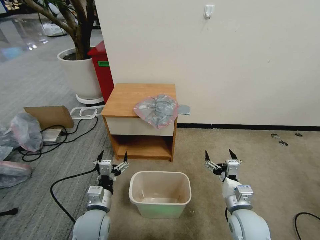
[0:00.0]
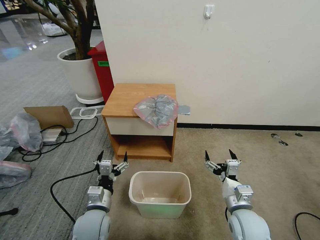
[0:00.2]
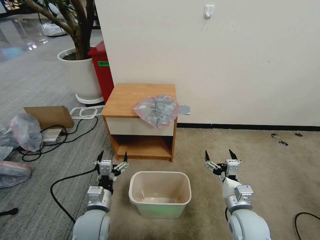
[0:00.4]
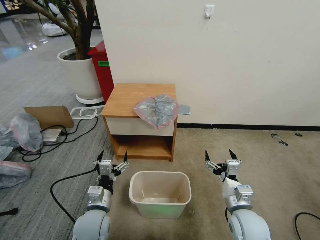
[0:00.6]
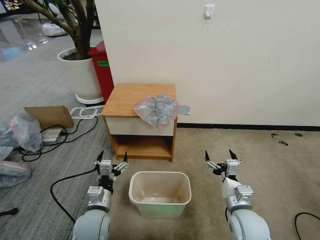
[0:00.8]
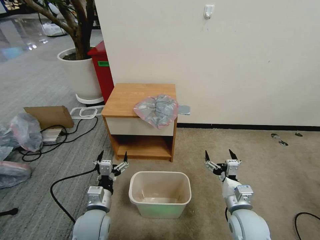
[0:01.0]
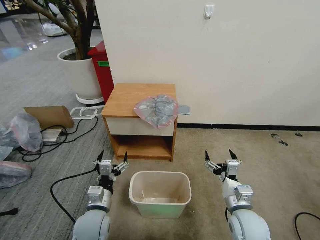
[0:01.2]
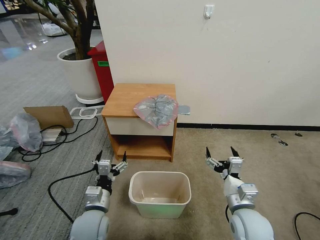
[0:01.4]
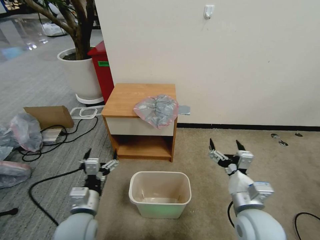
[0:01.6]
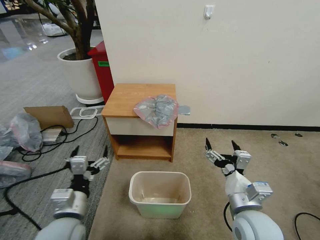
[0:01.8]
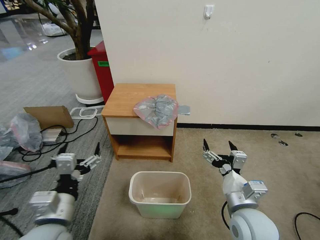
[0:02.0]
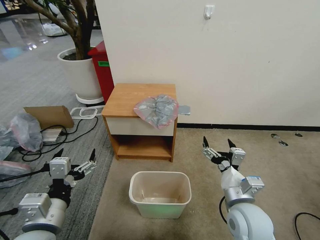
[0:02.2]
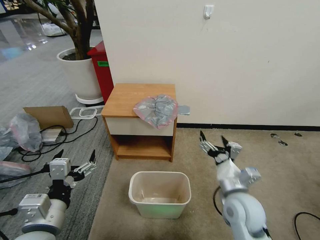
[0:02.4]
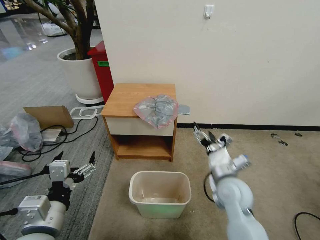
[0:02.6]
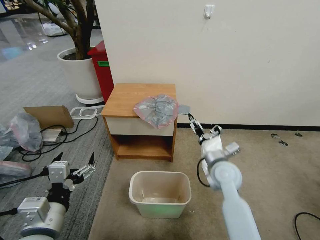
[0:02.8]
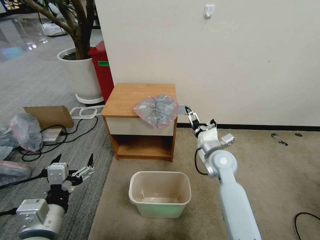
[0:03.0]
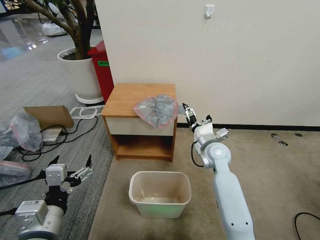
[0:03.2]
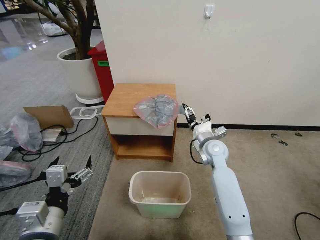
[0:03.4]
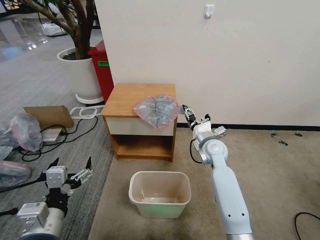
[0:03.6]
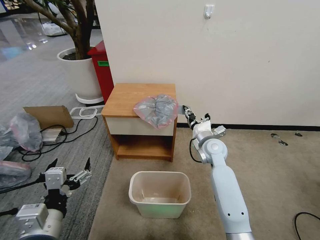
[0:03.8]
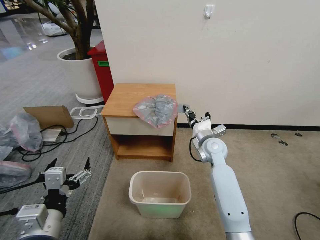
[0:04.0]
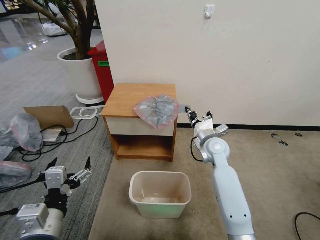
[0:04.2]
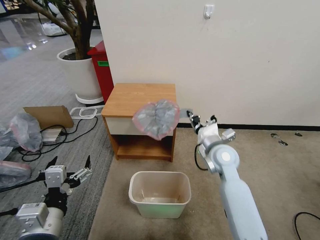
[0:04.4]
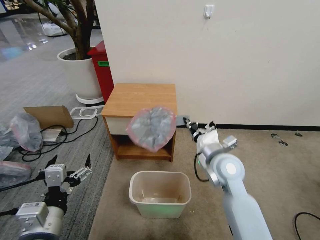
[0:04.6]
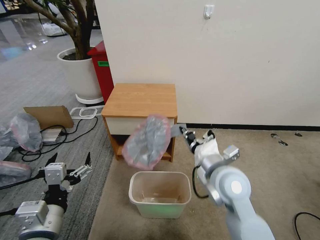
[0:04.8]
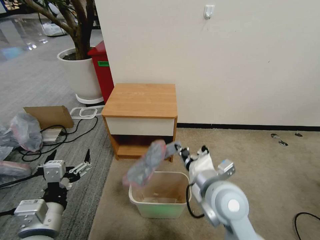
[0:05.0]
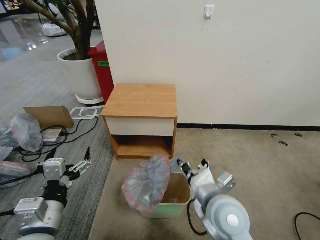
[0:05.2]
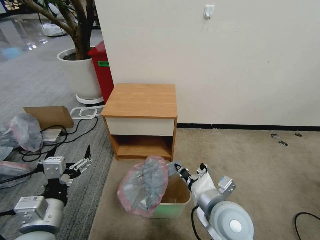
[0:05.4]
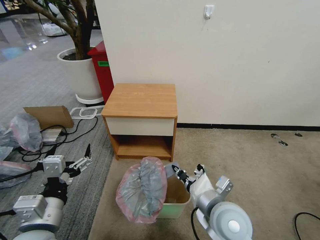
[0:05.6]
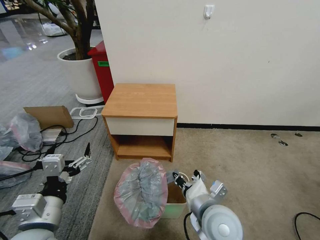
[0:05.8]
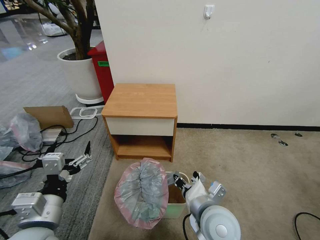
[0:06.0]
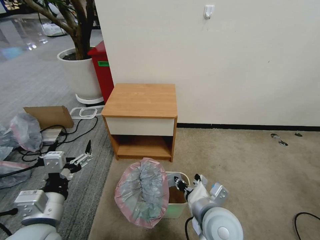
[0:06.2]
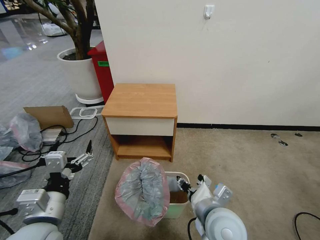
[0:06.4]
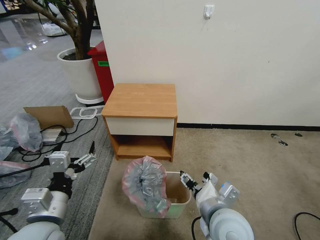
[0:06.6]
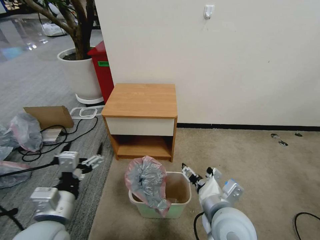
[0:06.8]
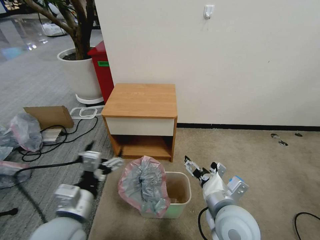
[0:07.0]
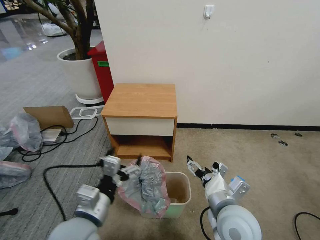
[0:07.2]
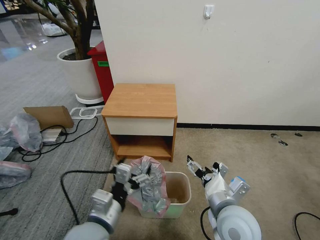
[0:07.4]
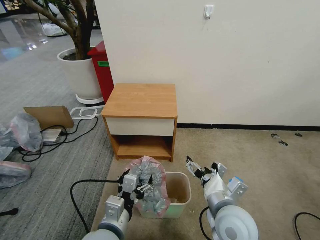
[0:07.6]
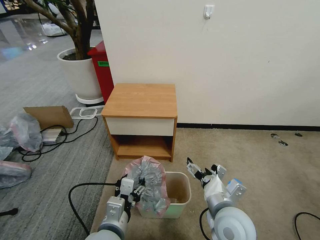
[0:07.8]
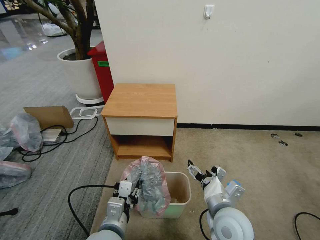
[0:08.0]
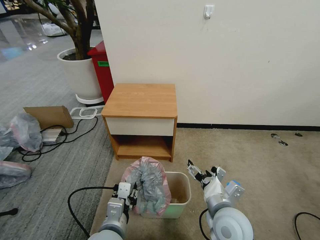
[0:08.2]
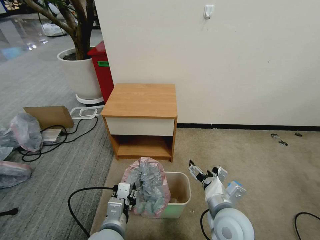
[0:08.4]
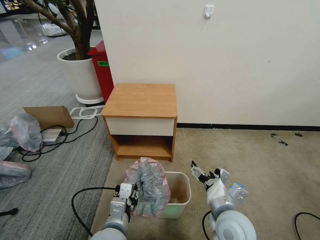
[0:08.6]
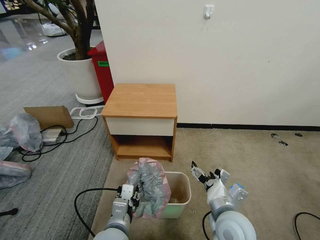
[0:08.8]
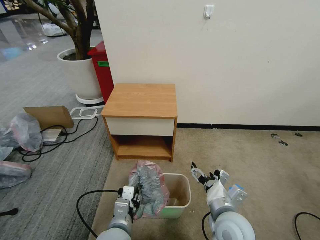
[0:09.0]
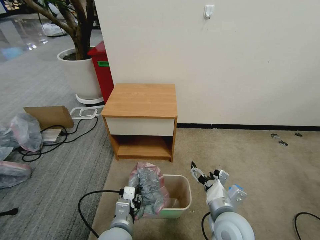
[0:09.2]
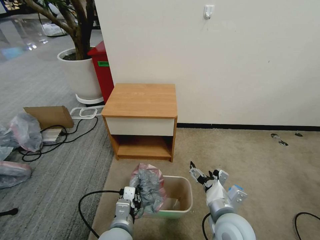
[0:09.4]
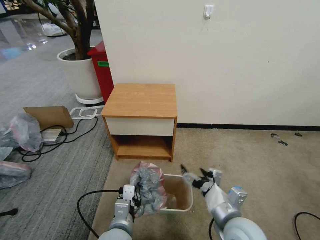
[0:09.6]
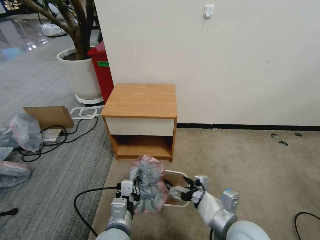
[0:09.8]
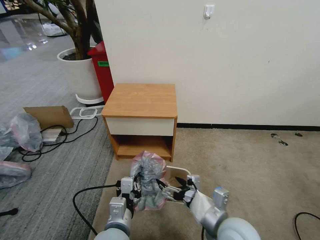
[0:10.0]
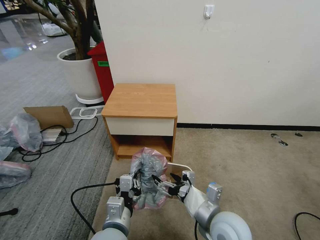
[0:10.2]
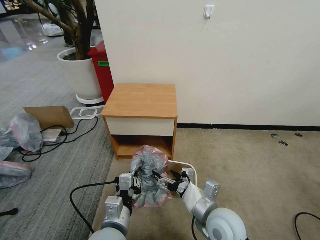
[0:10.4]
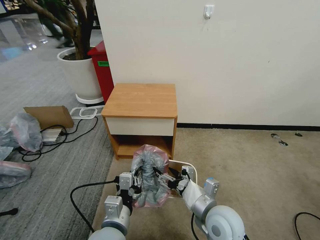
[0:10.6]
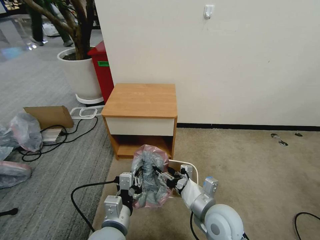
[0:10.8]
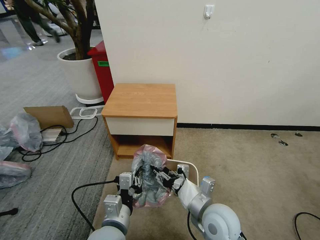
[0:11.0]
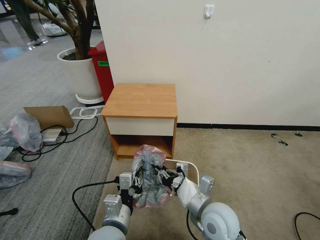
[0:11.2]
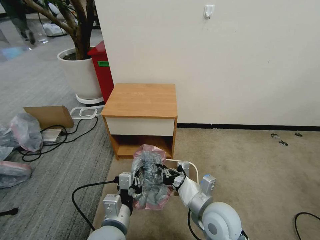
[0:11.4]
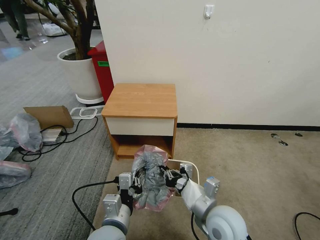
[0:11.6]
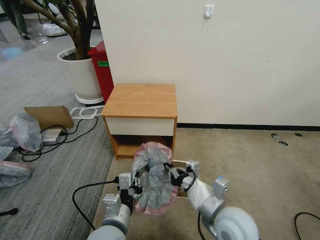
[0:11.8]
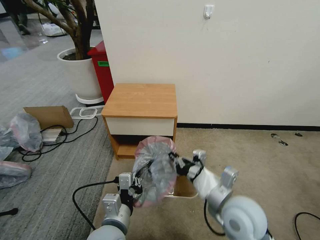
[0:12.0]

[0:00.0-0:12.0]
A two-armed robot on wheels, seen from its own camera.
Task of the whole recording: Pick up the garbage bag from the table and place it over the trash can.
0:01.6 to 0:03.0: The left gripper heads upward and backward, covering about 10 cm. Meanwhile the right gripper shifts roughly 20 cm forward.
0:03.0 to 0:04.4: The right gripper closes.
0:04.4 to 0:06.0: The right gripper heads backward, covering about 20 cm.
0:06.0 to 0:07.6: The right gripper opens its fingers. The left gripper heads to the right and downward, covering some 15 cm.
0:07.6 to 0:09.0: The left gripper moves downward, roughly 5 cm, and closes up.
0:09.0 to 0:10.4: The left gripper closes.
0:10.4 to 0:12.0: The right gripper moves upward, some 5 cm, and closes up.

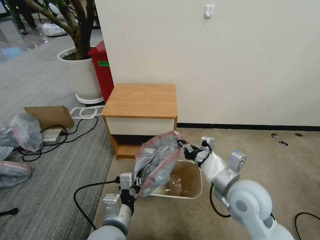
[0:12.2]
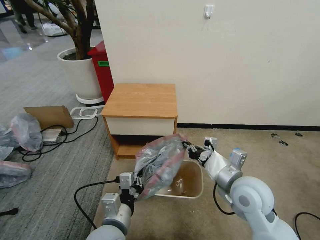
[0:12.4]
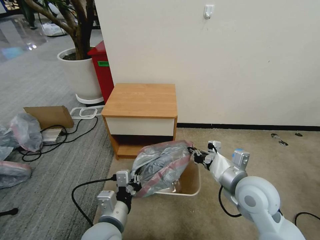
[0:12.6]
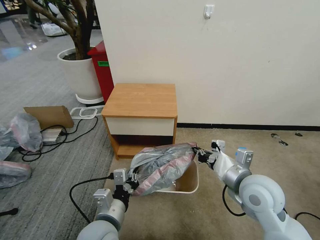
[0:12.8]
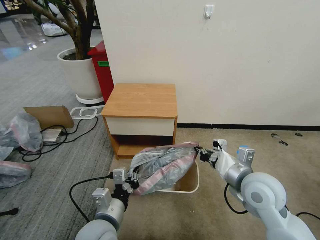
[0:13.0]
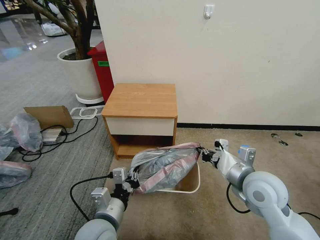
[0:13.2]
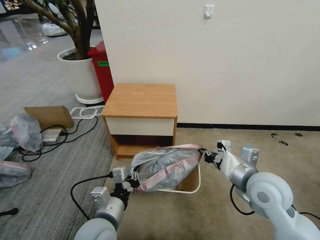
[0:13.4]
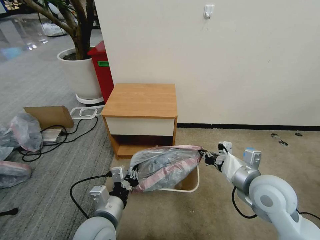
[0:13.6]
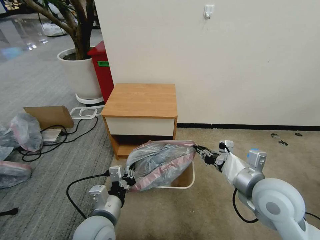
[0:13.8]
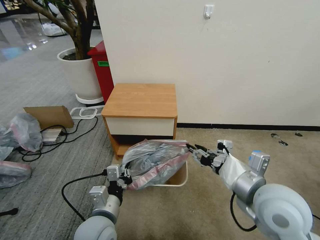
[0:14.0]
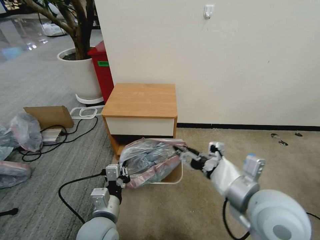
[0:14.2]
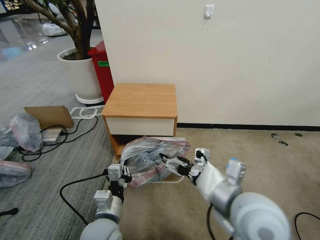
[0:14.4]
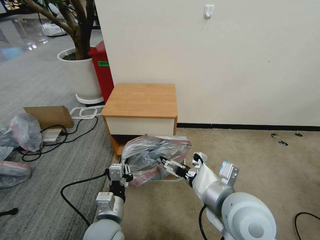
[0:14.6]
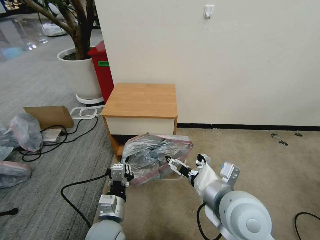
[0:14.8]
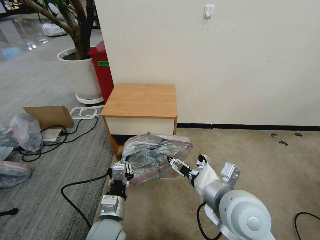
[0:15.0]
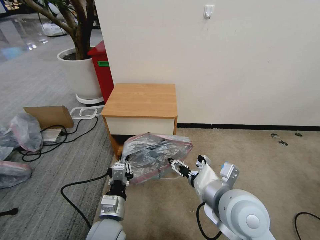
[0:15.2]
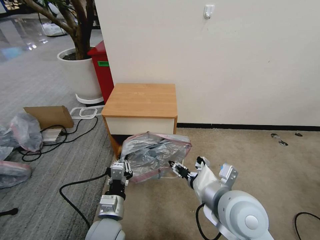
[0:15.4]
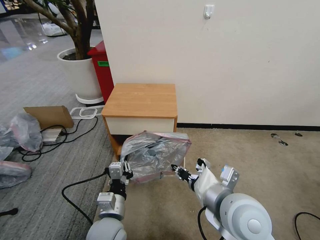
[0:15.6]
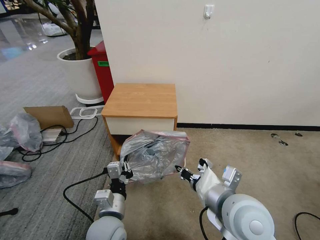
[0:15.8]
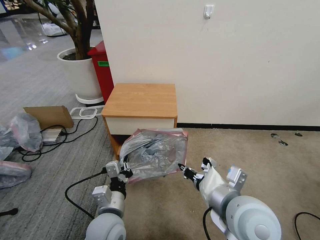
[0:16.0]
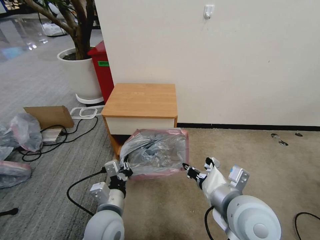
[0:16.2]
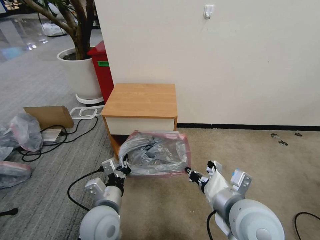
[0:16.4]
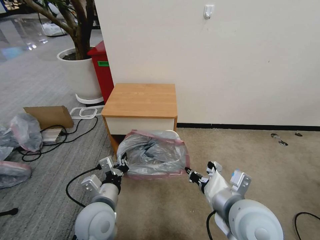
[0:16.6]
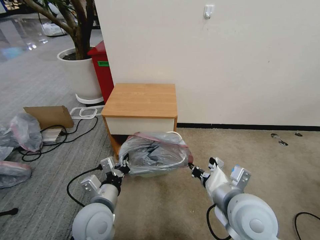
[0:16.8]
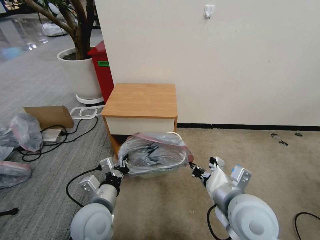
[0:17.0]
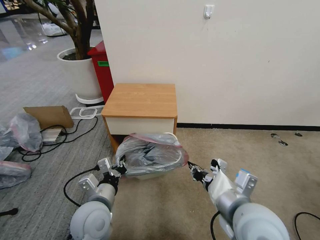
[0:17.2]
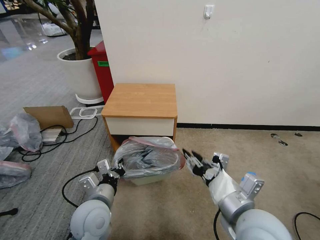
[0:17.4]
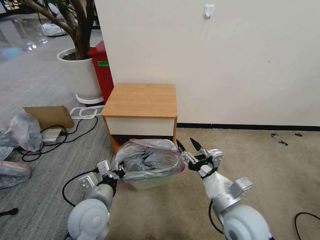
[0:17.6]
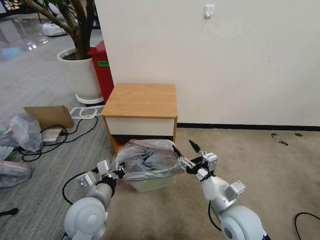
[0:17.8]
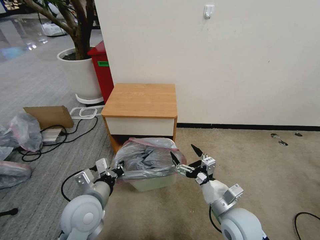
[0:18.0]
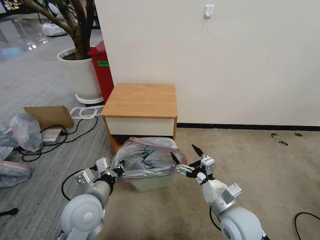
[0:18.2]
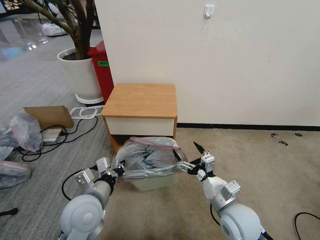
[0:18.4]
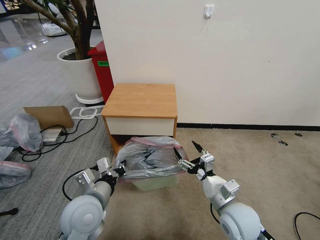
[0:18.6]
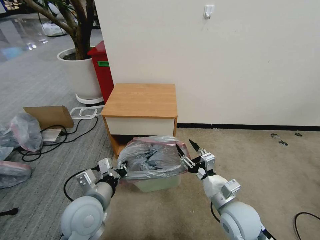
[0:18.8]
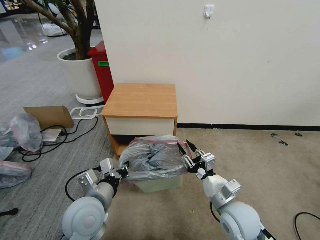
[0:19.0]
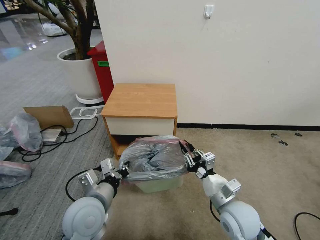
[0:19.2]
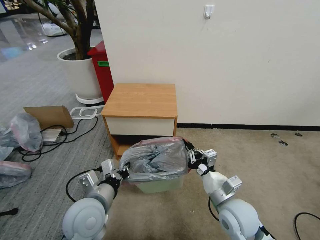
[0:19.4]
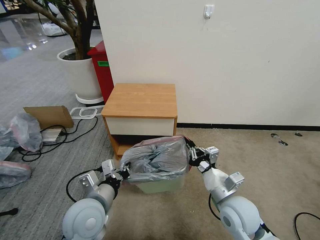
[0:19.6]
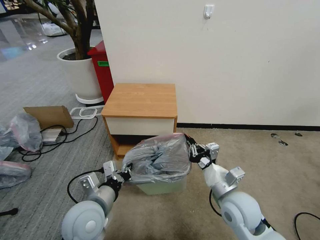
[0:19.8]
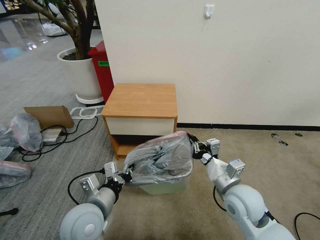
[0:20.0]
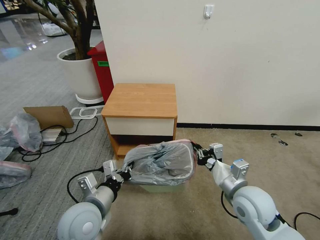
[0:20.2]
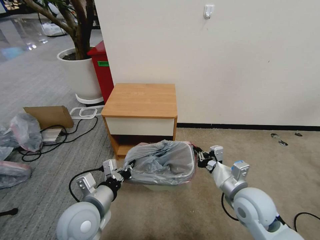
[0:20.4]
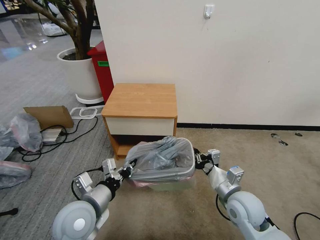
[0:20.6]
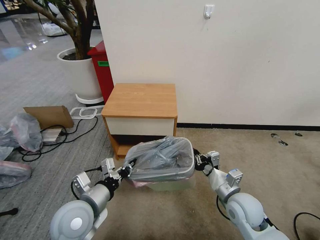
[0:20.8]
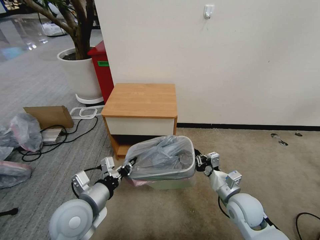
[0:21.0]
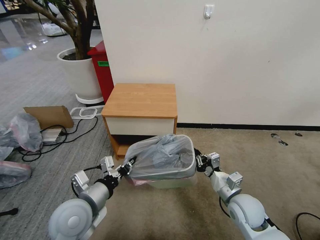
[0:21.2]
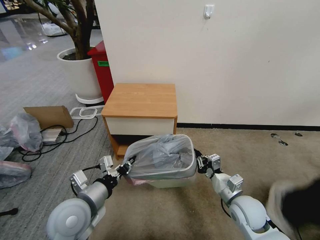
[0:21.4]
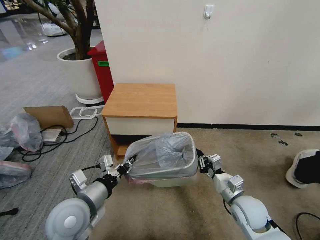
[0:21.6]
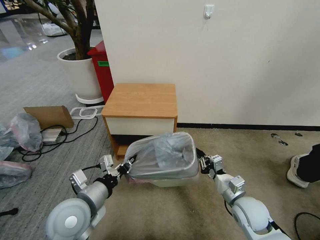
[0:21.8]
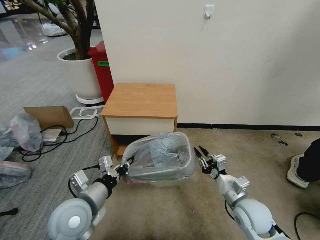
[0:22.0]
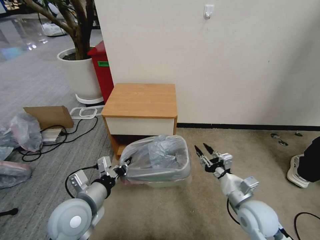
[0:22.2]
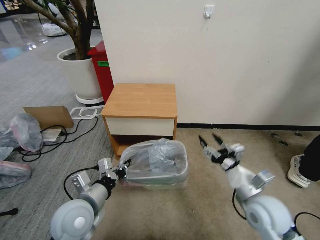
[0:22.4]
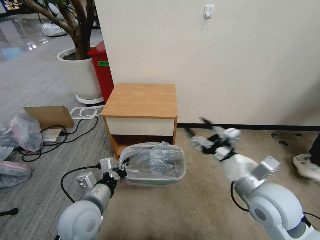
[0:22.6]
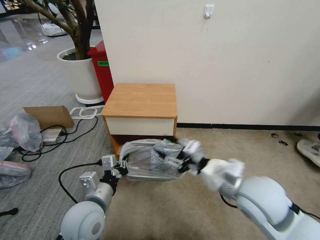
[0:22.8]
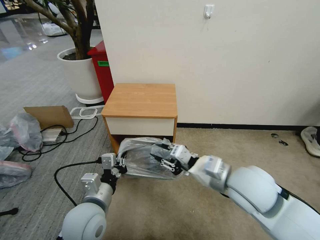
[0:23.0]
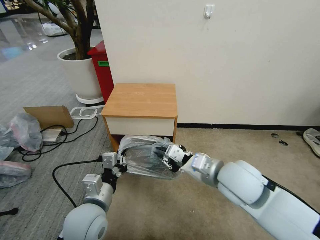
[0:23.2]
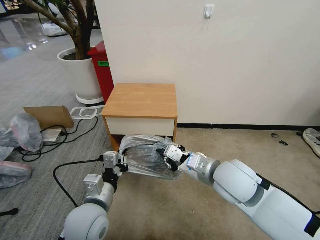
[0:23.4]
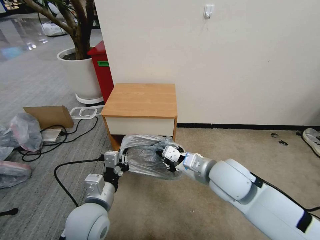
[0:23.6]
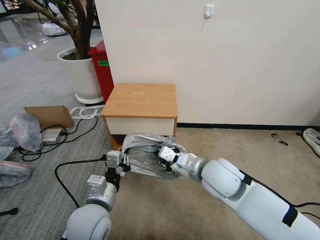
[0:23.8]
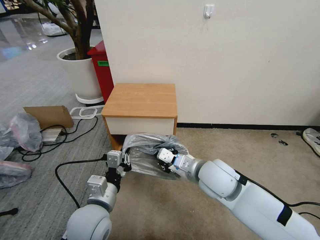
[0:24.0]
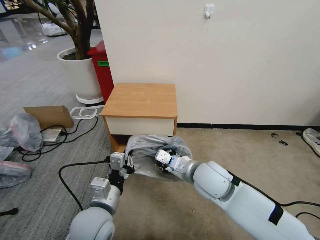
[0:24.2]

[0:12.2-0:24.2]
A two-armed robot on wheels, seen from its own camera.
Task of the whole recording: Pick up the garbage bag from the table and place it over the trash can.
0:12.2 to 0:13.8: The right gripper travels to the right by about 5 cm.
0:13.8 to 0:15.2: The right gripper is displaced to the left by some 10 cm, and opens. Meanwhile the left gripper heads downward, covering approximately 5 cm.
0:15.2 to 0:16.6: The left gripper is displaced upward by about 5 cm, while the right gripper closes.
0:16.6 to 0:18.2: The right gripper travels downward by approximately 10 cm, and opens up.
0:18.2 to 0:19.8: The right gripper closes its fingers.
0:19.8 to 0:21.2: The right gripper moves downward, roughly 5 cm.
0:21.2 to 0:22.6: The right gripper heads upward, covering approximately 15 cm, and opens.
0:22.6 to 0:24.2: The right gripper travels to the left and forward by about 15 cm, and closes.
